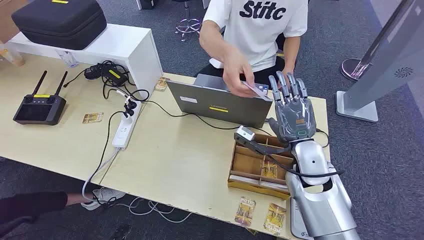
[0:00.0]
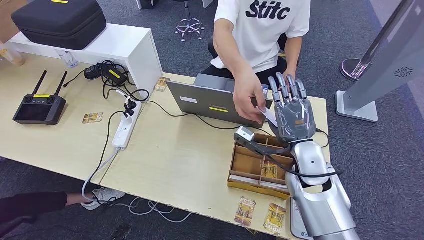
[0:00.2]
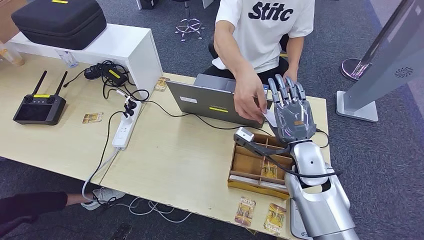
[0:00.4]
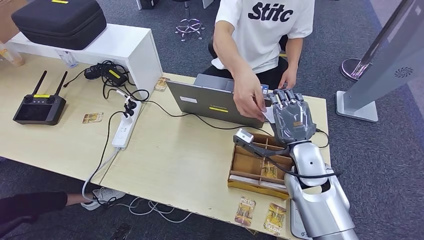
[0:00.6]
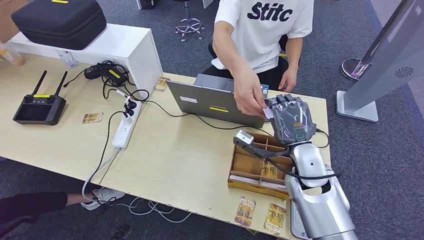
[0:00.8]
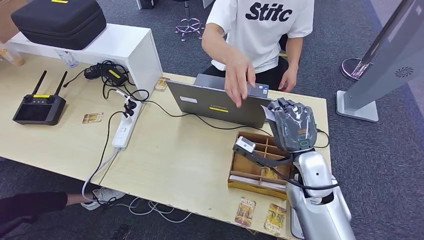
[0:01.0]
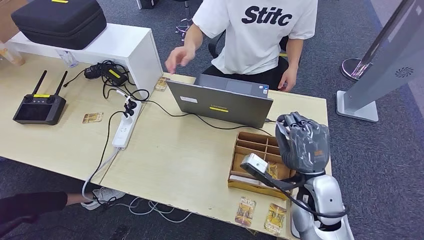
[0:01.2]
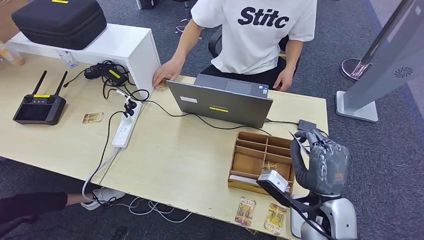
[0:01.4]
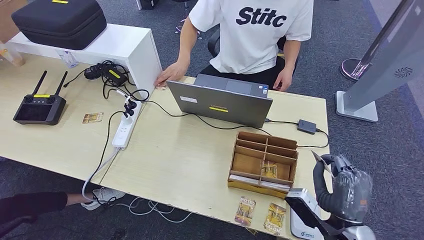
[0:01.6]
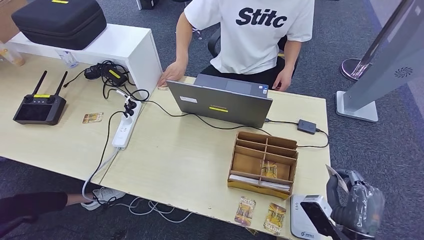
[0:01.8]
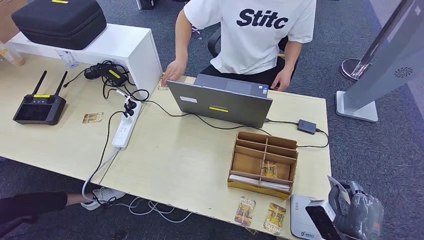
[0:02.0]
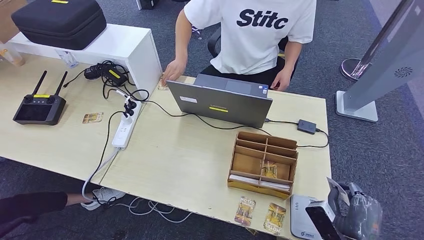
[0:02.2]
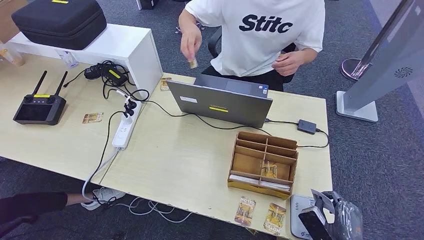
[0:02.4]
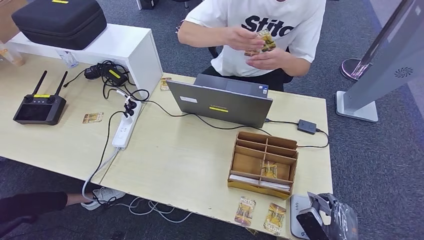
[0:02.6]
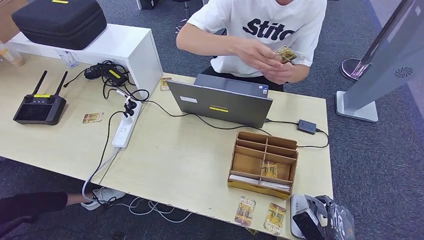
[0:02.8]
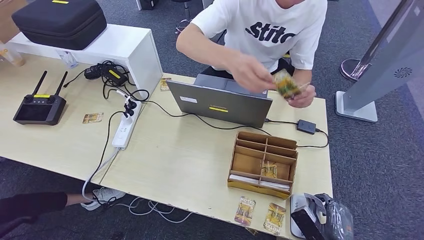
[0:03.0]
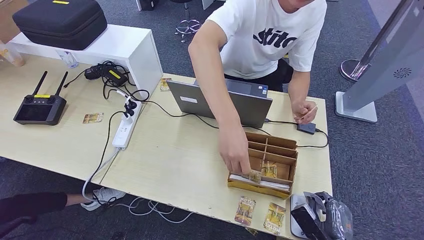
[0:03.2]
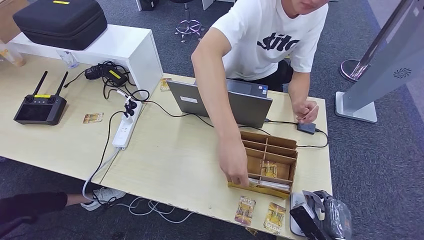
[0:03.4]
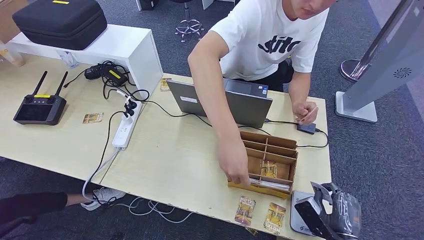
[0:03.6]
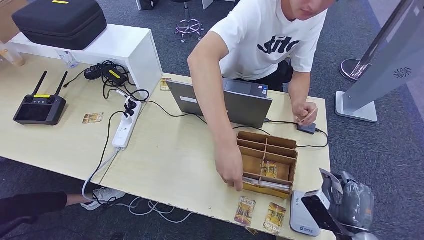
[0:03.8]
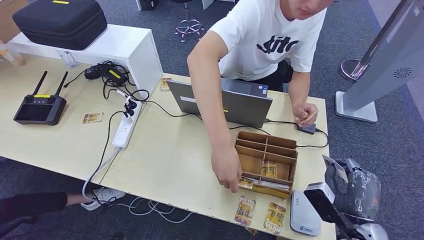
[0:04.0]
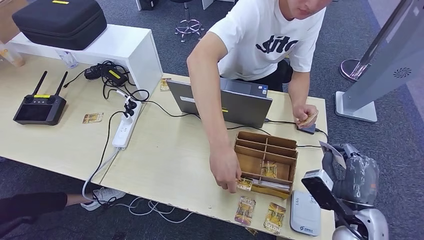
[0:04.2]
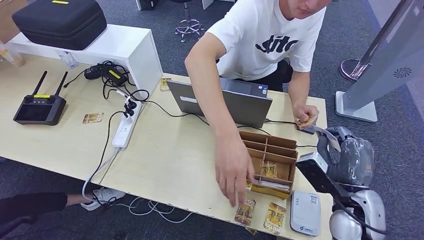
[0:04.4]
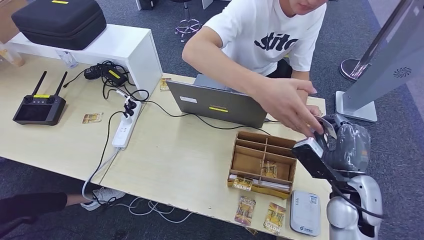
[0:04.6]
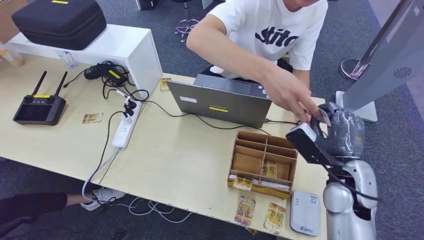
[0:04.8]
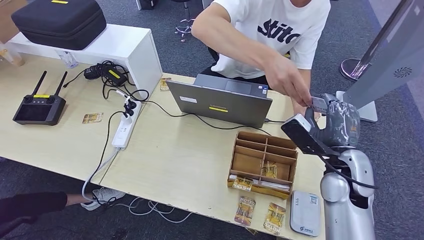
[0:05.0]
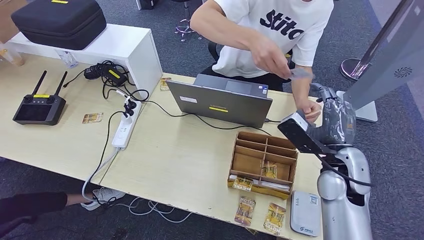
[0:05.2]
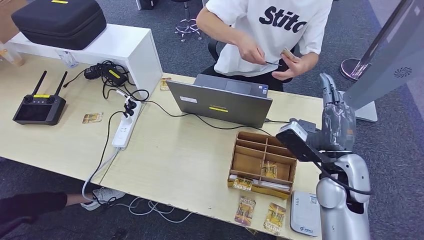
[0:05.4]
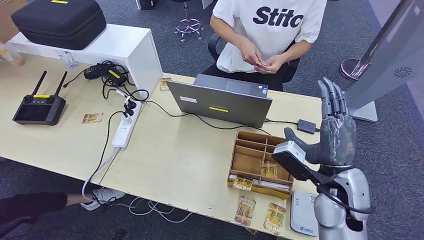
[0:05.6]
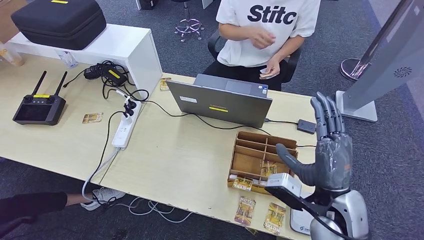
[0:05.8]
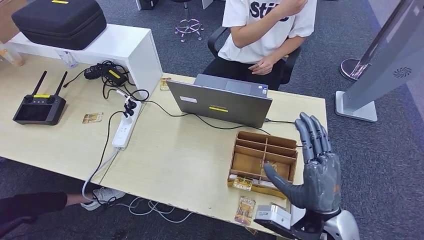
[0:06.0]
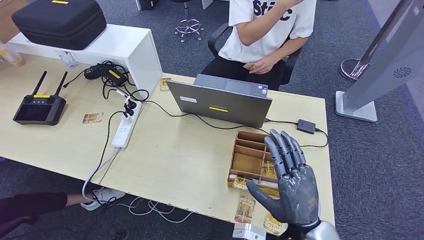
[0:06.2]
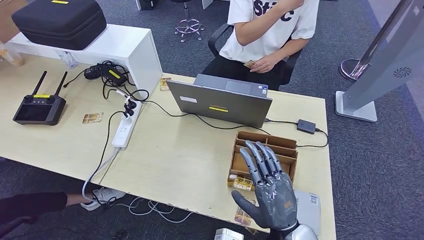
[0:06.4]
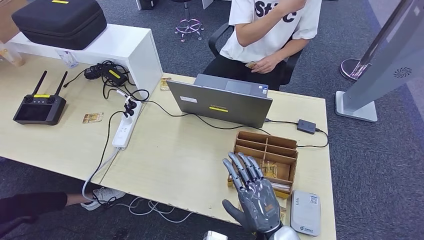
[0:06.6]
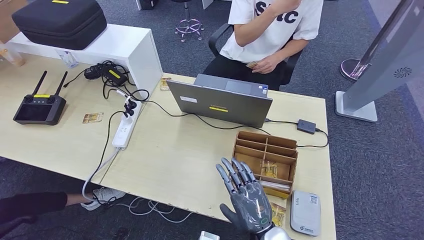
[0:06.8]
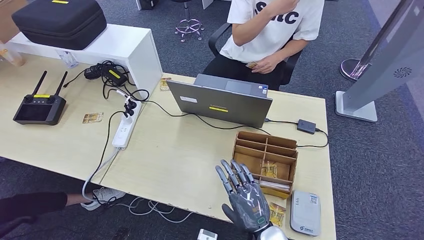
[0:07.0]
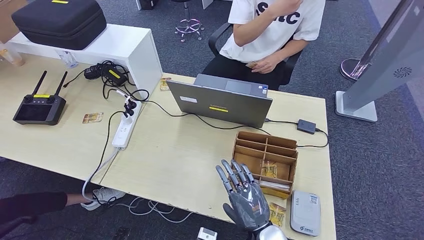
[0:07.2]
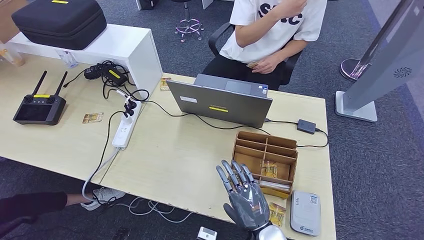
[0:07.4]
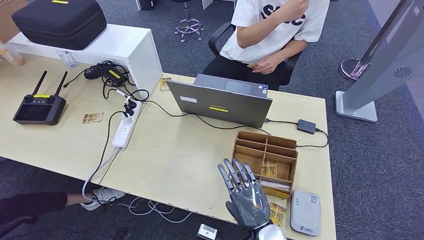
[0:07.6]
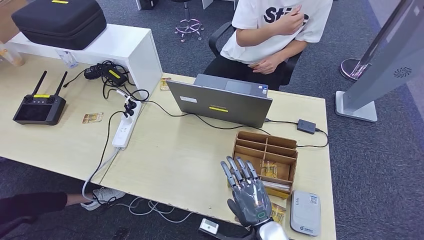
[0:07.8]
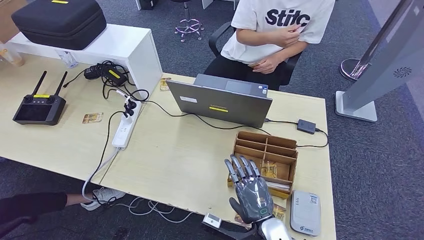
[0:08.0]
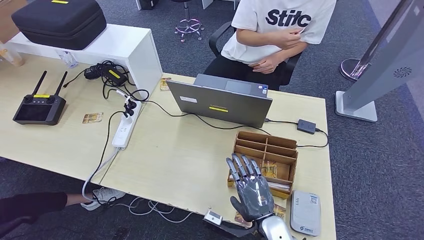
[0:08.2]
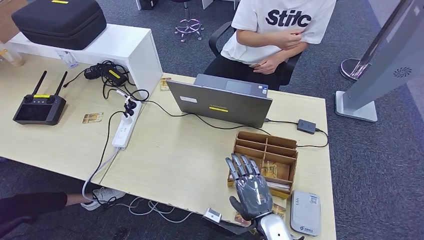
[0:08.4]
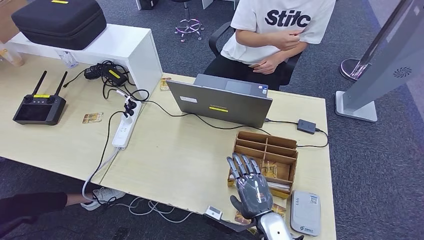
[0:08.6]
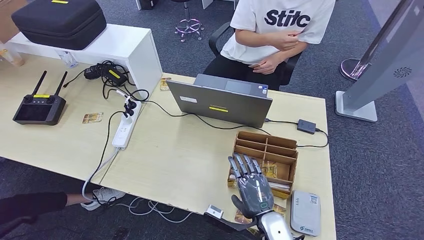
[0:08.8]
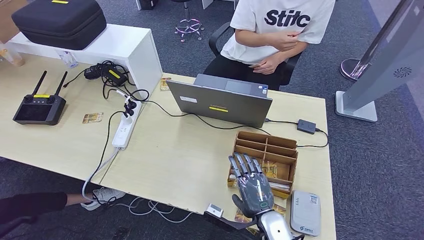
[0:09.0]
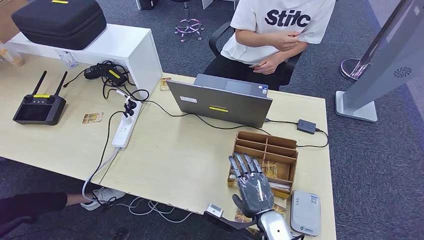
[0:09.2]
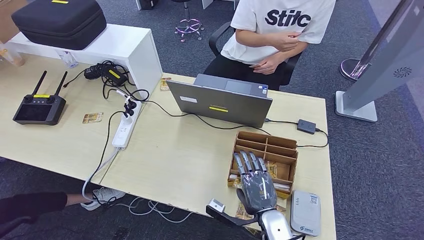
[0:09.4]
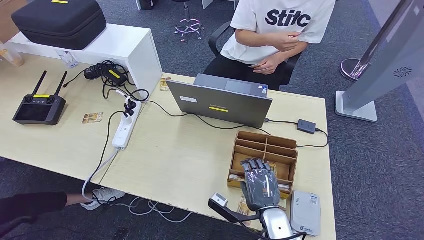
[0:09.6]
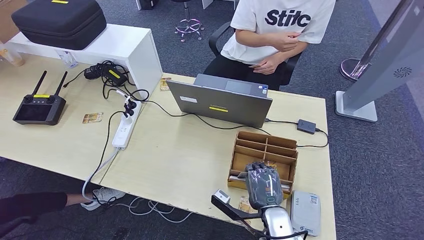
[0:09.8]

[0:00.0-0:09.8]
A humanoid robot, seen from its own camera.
Step, 0:00.0 to 0:01.6: Take the ID card from the person's hand.
Step, 0:01.8 to 0:04.0: Place the ID card on the card reader.
Step, 0:04.4 to 0:06.0: Hand the ID card to the person.
0:01.4 to 0:02.8: The right hand heads downward, to the right and backward, covering about 20 cm.
0:02.8 to 0:04.2: The right hand travels upward and forward by some 15 cm.
0:04.2 to 0:05.6: The right hand heads upward and to the left, covering some 10 cm.
0:05.6 to 0:07.0: The right hand travels downward, backward and to the left by about 20 cm.
0:07.0 to 0:08.4: The hands make only small movements.
0:08.4 to 0:09.8: The hands stay close to where they were, moving slightly.

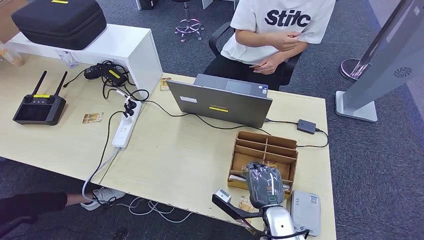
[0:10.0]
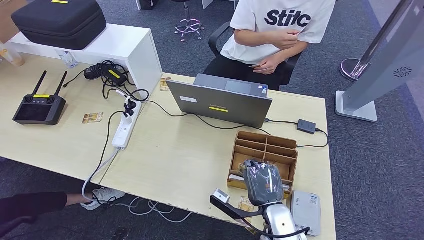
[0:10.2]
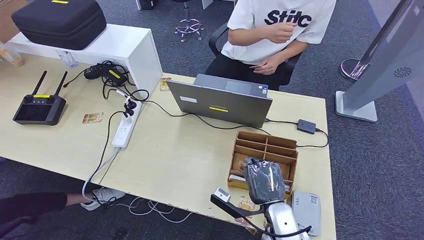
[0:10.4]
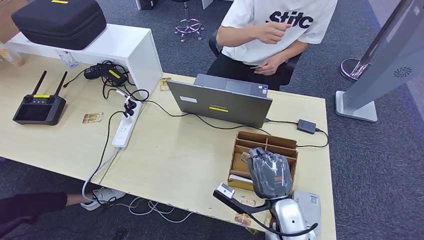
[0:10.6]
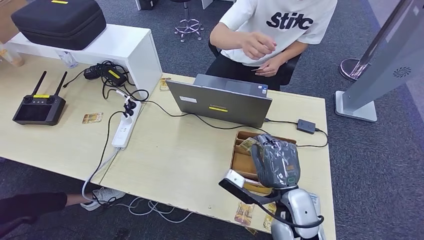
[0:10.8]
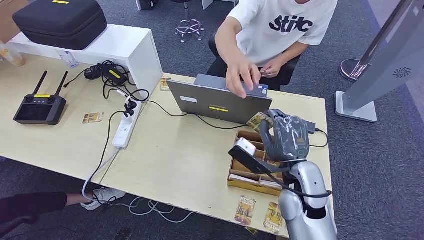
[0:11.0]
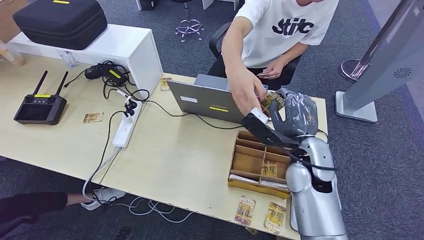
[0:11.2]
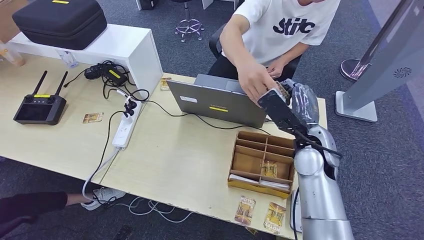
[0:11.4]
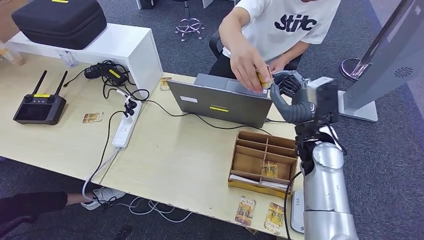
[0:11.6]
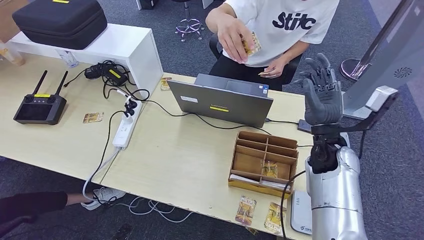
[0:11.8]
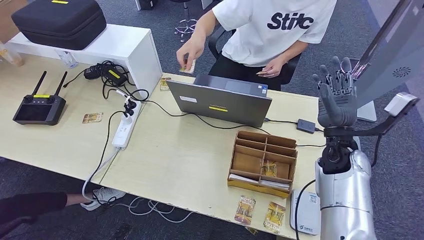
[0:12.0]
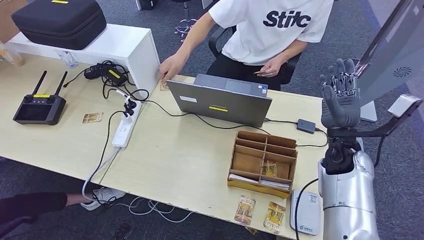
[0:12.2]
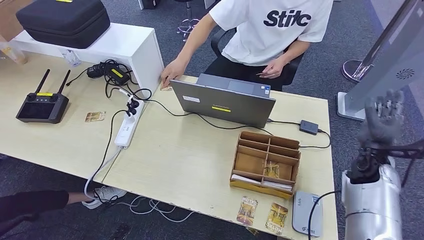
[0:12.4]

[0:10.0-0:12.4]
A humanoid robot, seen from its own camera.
Step, 0:11.0 to 0:12.4: Hand the room key to the person.
0:10.0 to 0:11.2: The right hand is displaced upward and forward by about 20 cm.
